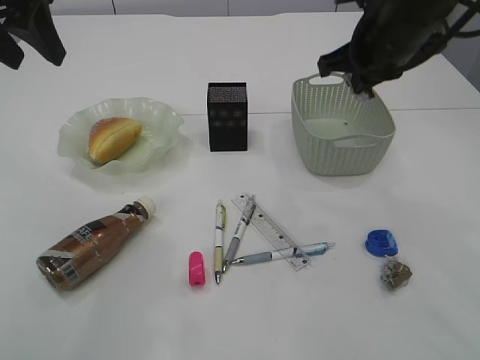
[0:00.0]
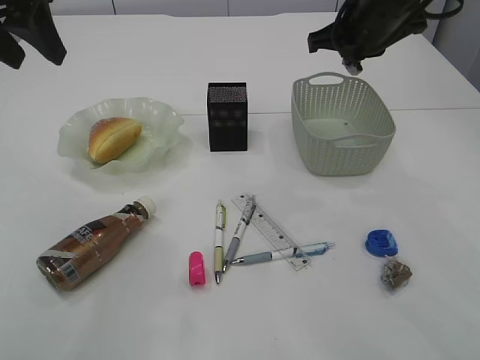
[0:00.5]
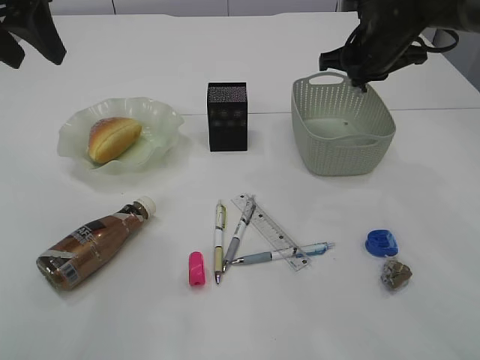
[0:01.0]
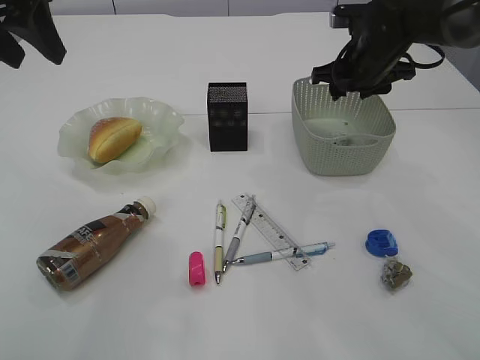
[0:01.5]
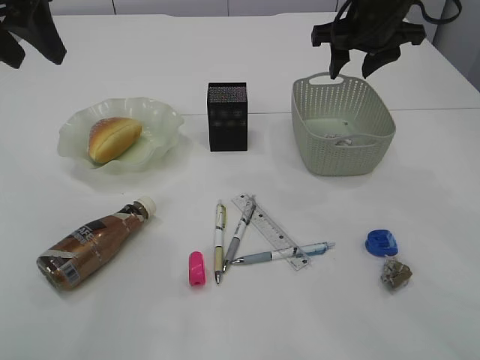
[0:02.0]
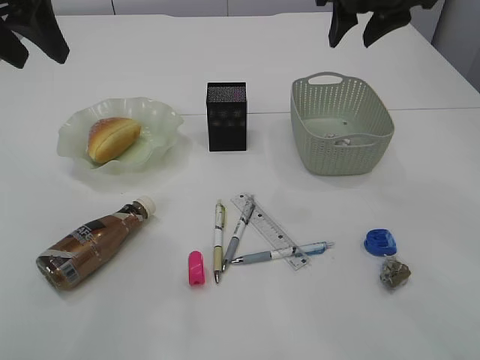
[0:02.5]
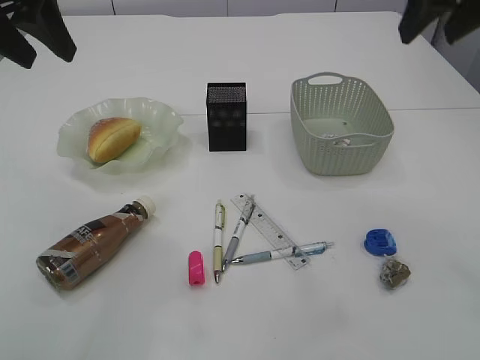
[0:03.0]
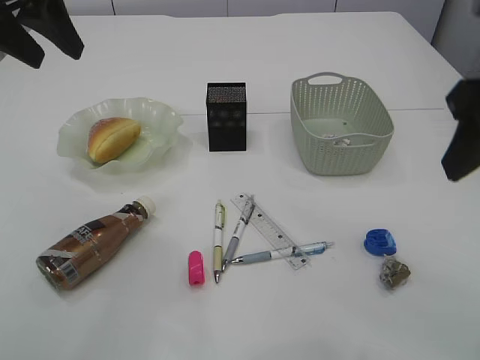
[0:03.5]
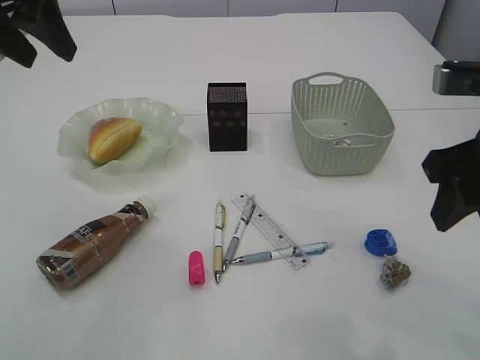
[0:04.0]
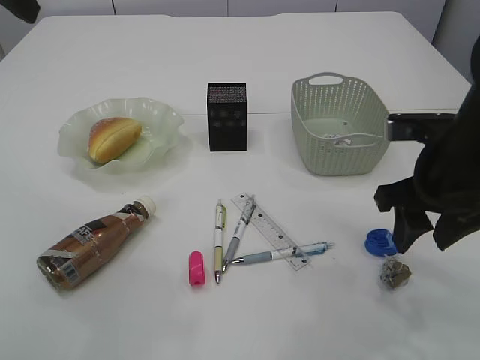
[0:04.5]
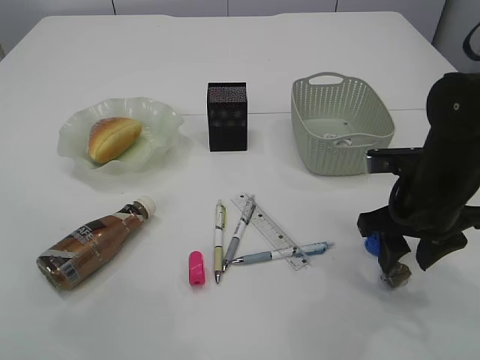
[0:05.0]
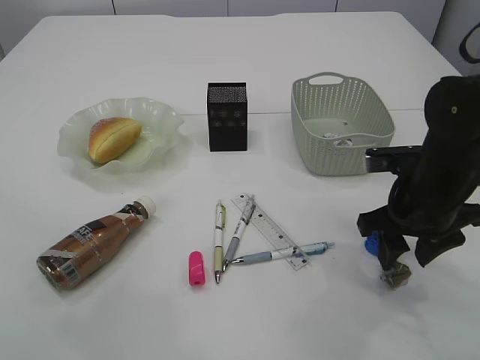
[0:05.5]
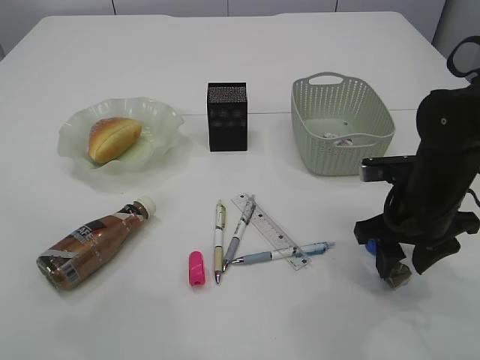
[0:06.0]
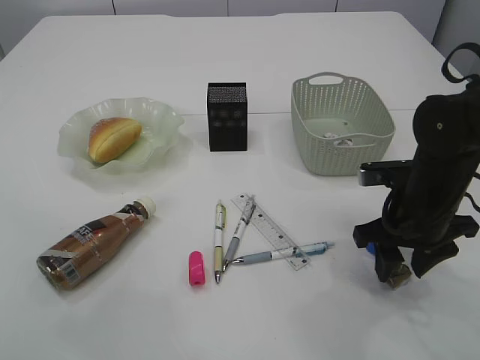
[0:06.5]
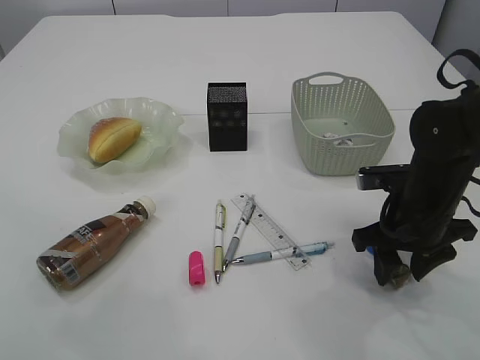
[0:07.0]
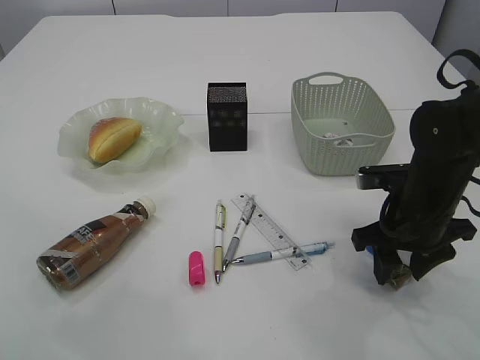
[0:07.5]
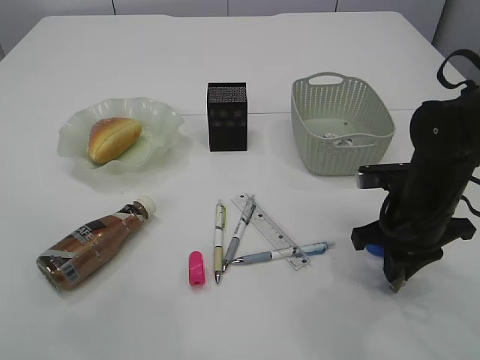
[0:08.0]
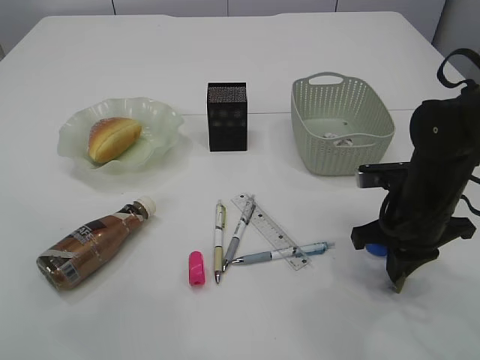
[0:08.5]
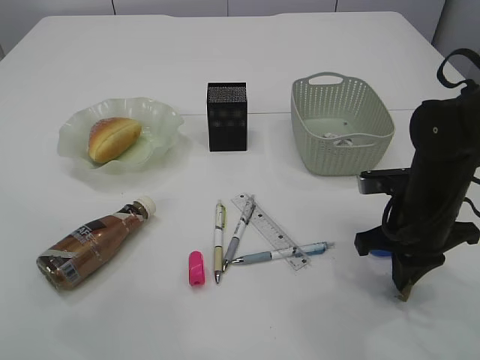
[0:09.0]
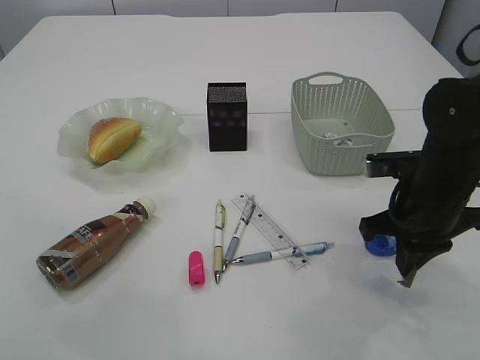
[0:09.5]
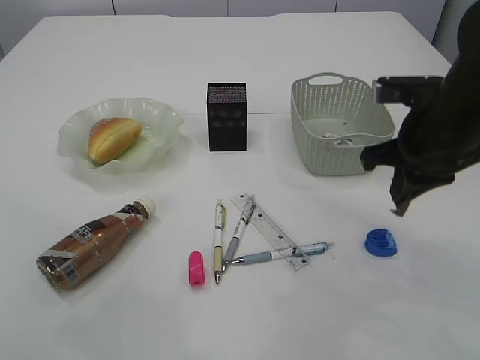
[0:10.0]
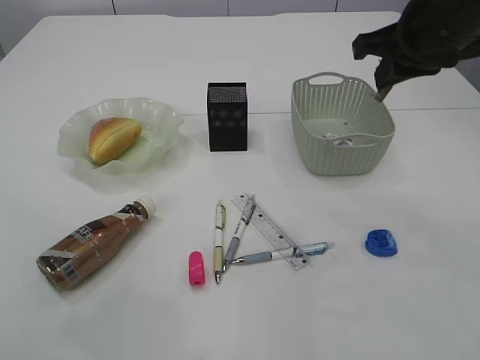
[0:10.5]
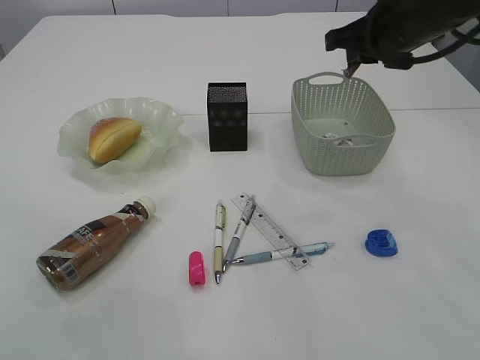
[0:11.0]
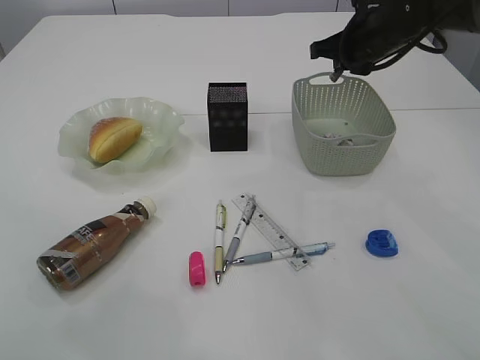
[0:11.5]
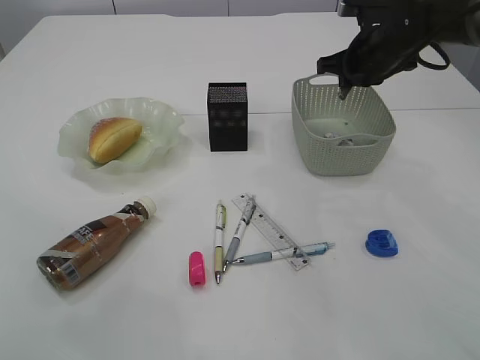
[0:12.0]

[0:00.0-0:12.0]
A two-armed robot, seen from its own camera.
Step, 0.0 to 2.0 s: Place the waste paper in the basket.
Step, 2.5 to 10.0 s: Pick up the waste paper.
0.0 to 2.0 s: The right gripper moves forward, some 10 cm, and opens up.
2.0 to 4.0 s: The right gripper moves backward, some 25 cm.
4.0 to 6.0 s: The right gripper is displaced downward and forward by about 15 cm. The left gripper travels upward and backward by about 10 cm.
6.0 to 8.0 s: The right gripper closes.
8.0 to 10.0 s: The right gripper goes about 10 cm upward.
10.0 to 12.0 s: The right gripper is displaced forward by about 15 cm.

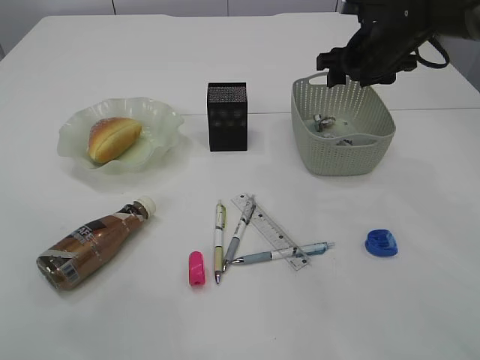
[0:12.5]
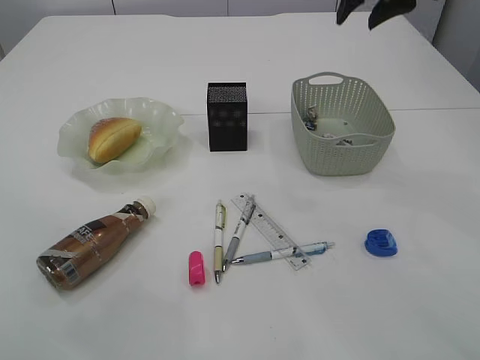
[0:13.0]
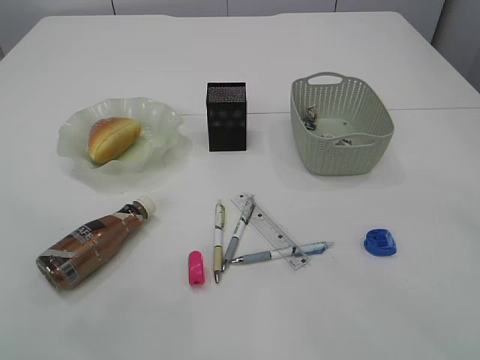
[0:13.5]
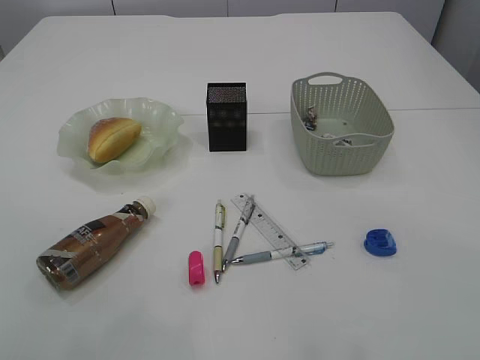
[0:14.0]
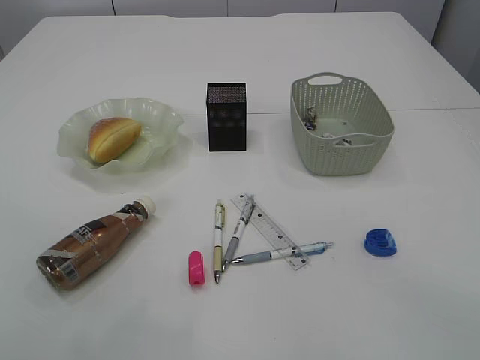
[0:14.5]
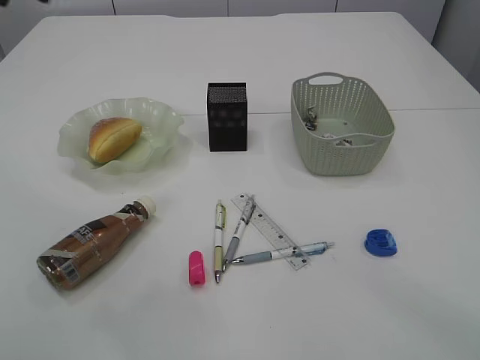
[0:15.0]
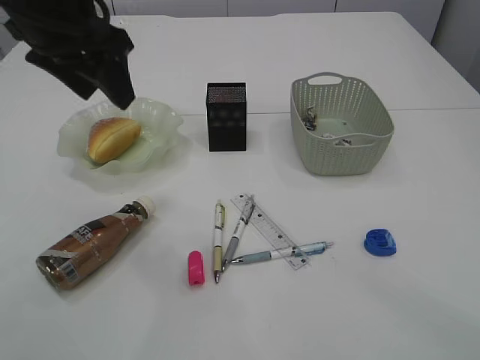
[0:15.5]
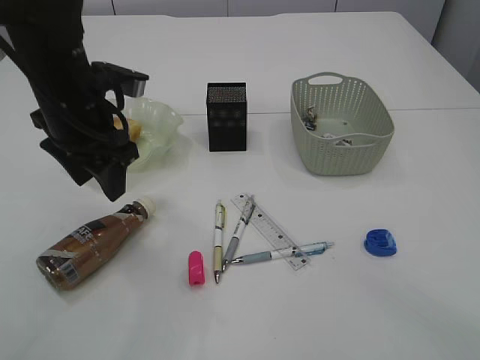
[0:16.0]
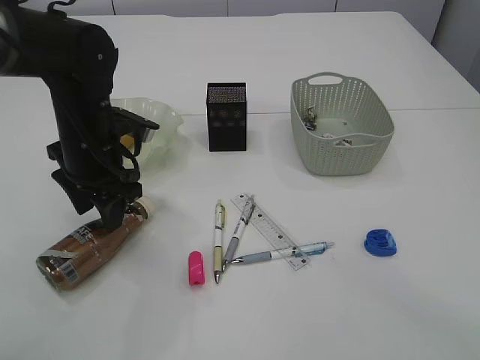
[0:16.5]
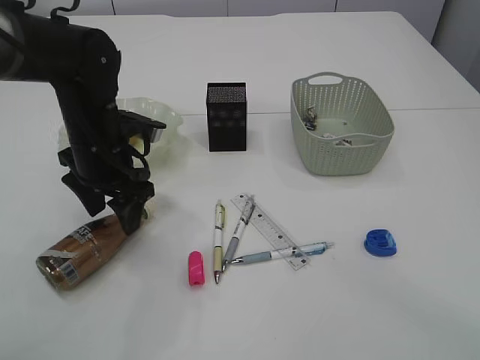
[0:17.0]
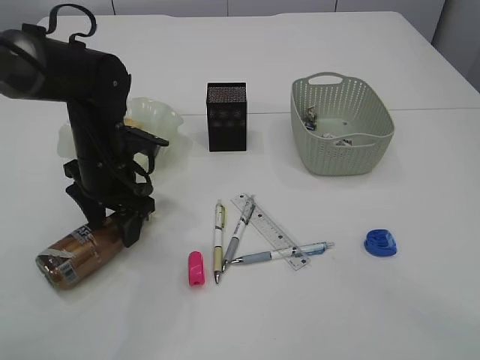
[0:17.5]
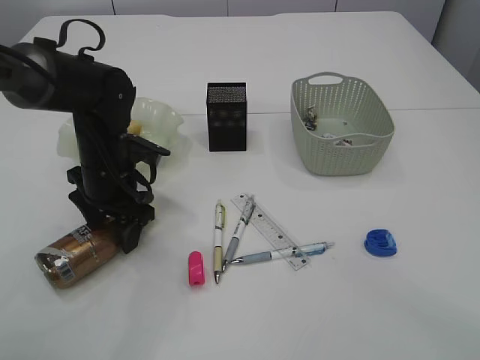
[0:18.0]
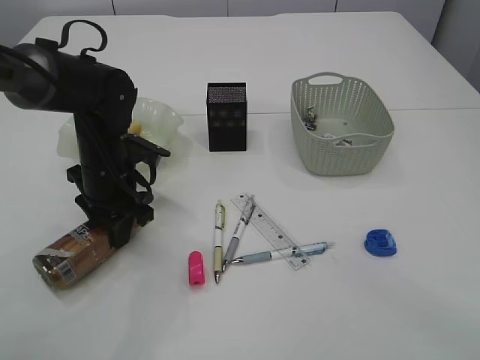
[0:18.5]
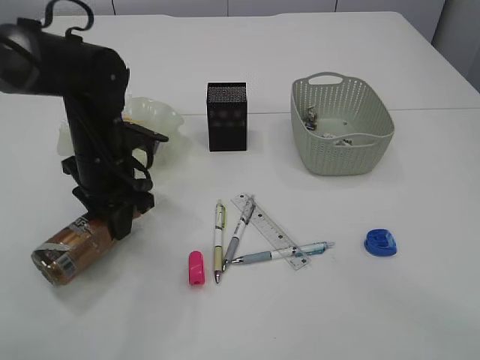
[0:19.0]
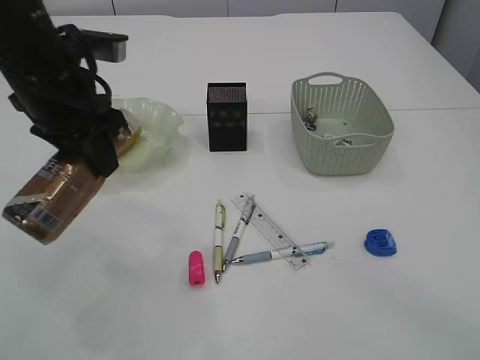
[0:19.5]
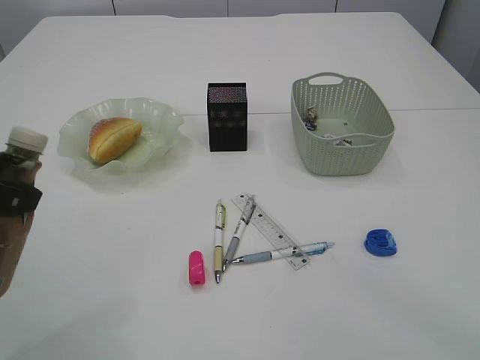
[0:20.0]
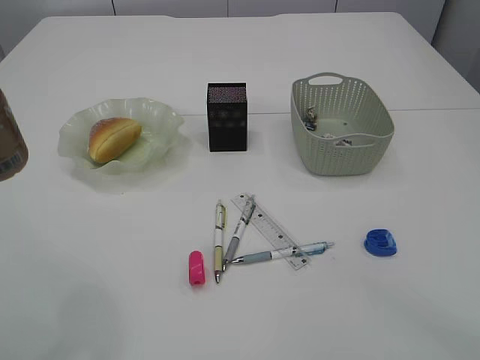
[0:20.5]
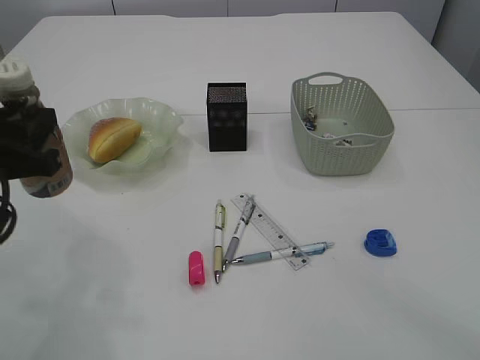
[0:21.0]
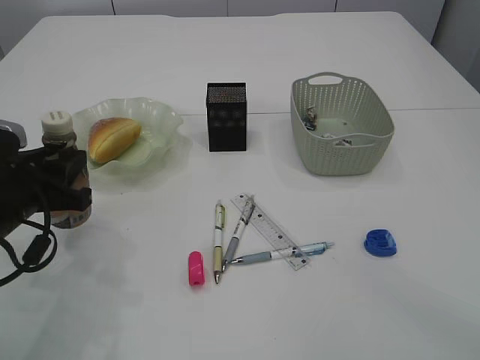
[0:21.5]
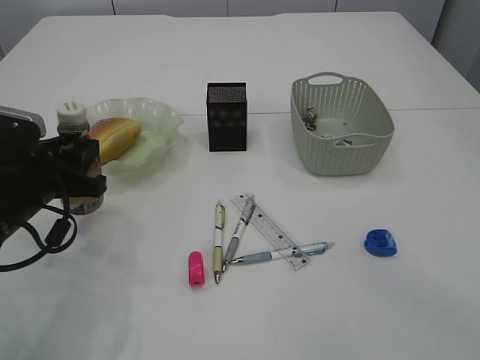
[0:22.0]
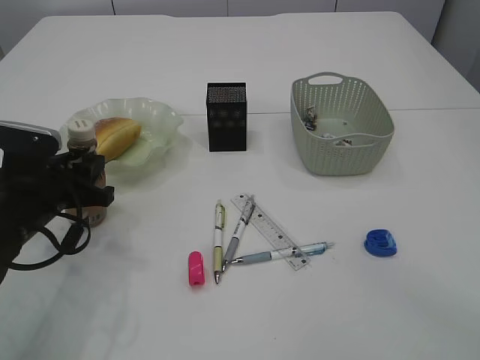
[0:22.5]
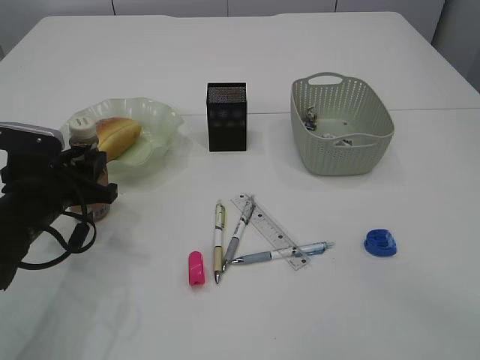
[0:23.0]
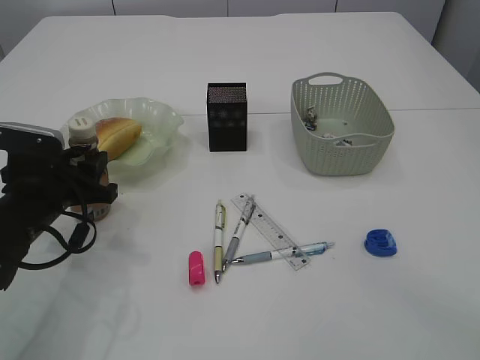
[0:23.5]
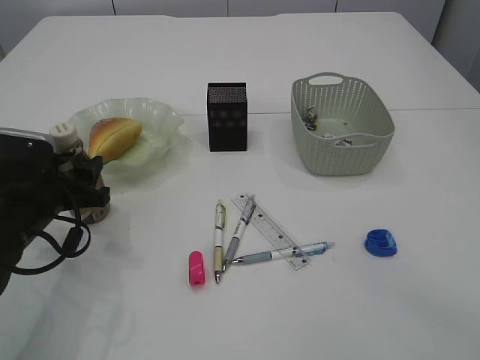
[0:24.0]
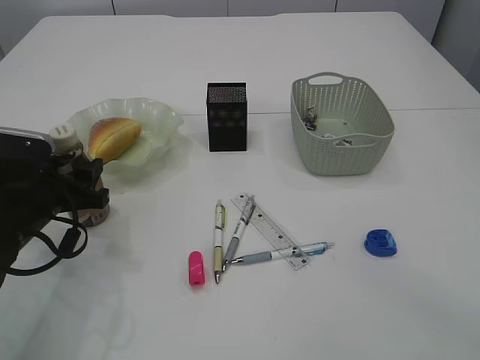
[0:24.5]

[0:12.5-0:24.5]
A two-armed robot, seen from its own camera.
Step, 13.0 to 19.0 s: Pick up the bottle with the left arm.
12.5 to 14.5 s: The right gripper shifts some 40 cm backward and upward.
14.5 to 16.5 s: The left gripper heads downward, covering approximately 30 cm.
16.5 to 18.5 s: The left gripper is displaced downward by about 5 cm.
18.5 to 20.5 s: The left gripper goes roughly 30 cm backward, upward and to the left.
20.5 to 22.5 s: The left gripper goes approximately 20 cm downward and forward.
22.5 to 24.5 s: The left gripper opens its fingers.

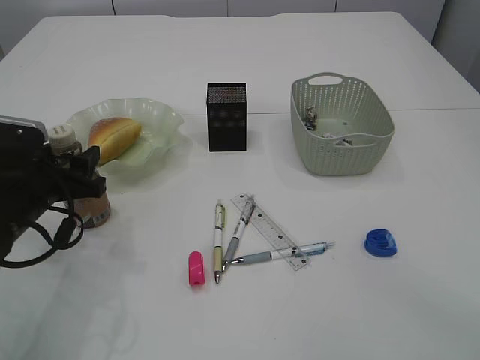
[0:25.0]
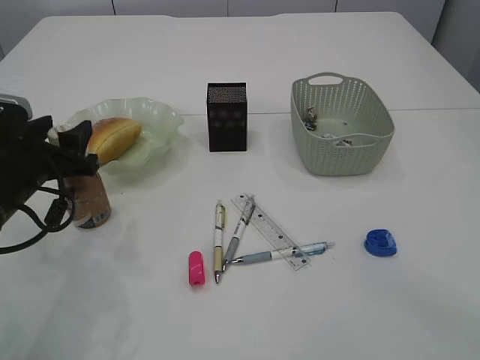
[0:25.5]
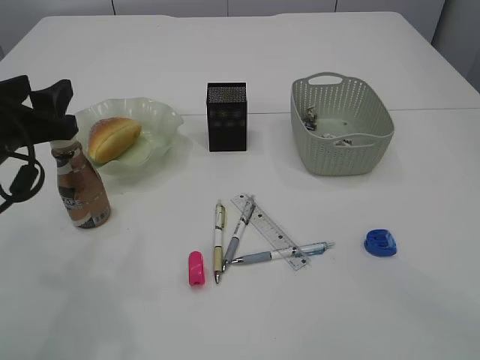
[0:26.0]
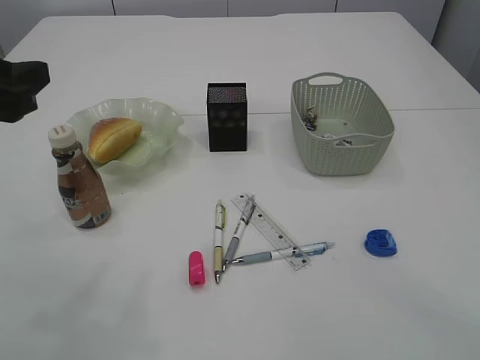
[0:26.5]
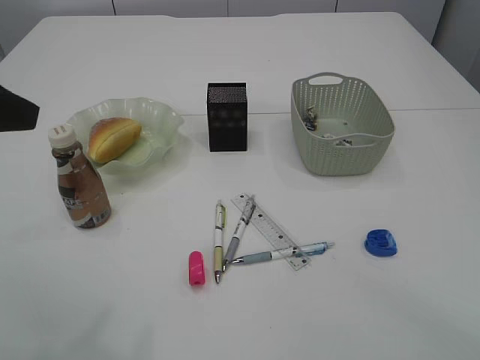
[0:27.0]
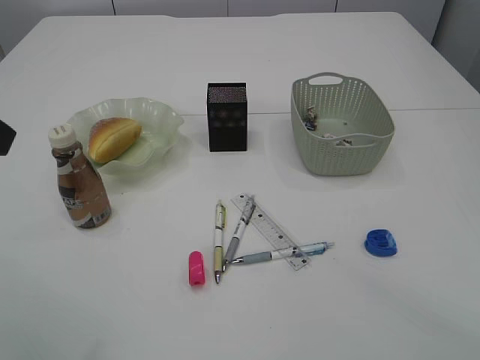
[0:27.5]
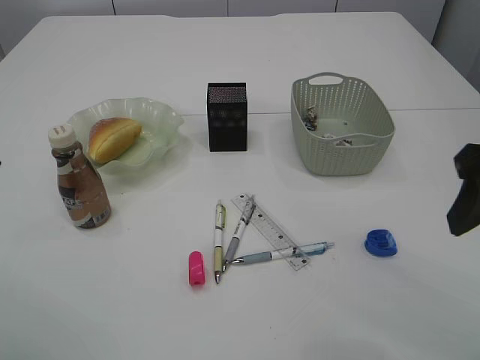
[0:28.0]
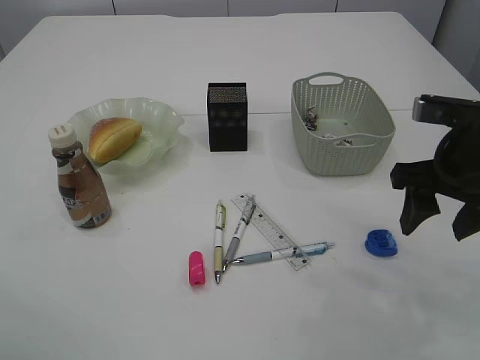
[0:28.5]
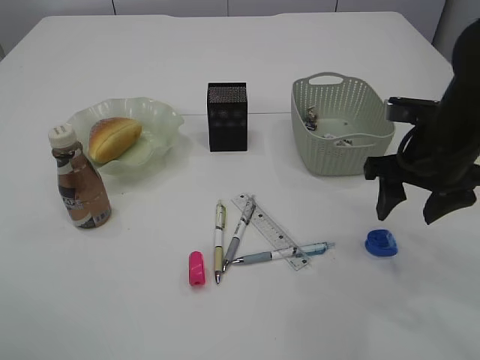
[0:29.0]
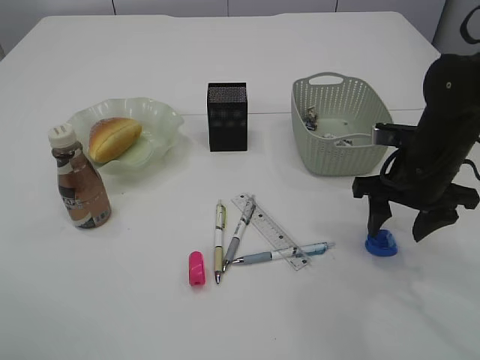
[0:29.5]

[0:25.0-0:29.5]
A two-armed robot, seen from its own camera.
25.0 to 27.0 s: The left gripper shifts approximately 25 cm upward and backward.
27.0 to 29.5 s: The right gripper moves forward and downward, roughly 30 cm.
